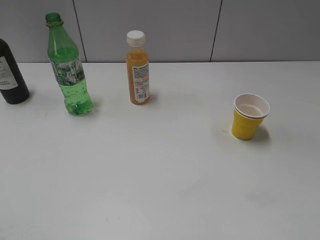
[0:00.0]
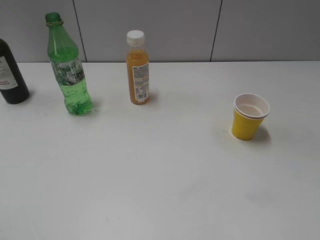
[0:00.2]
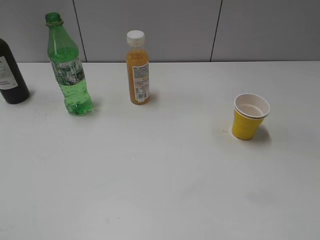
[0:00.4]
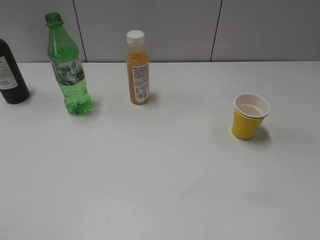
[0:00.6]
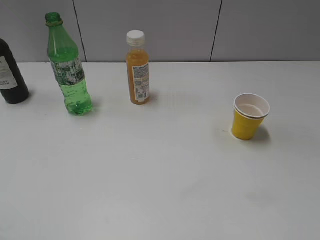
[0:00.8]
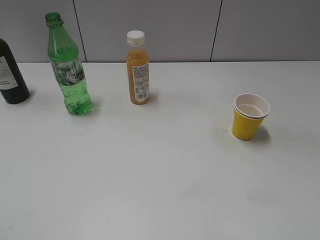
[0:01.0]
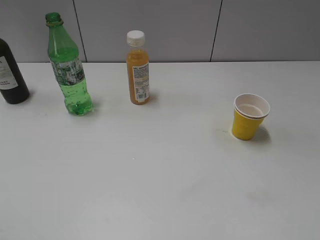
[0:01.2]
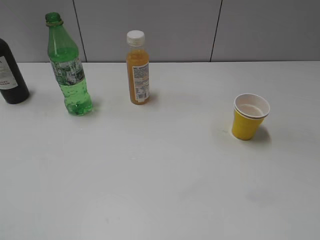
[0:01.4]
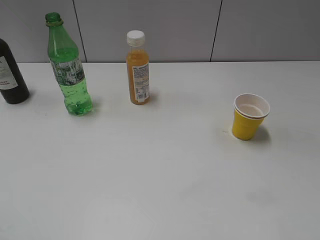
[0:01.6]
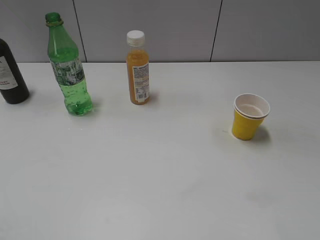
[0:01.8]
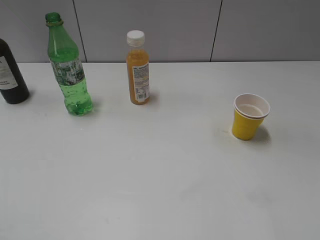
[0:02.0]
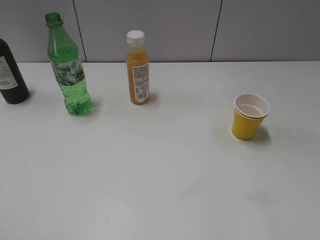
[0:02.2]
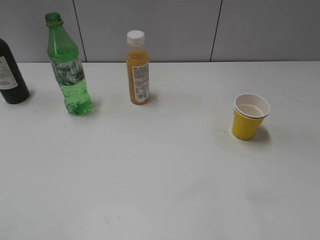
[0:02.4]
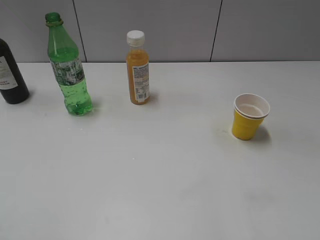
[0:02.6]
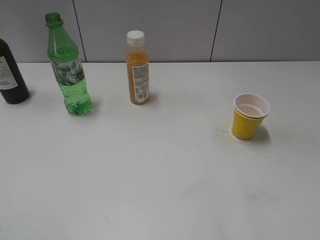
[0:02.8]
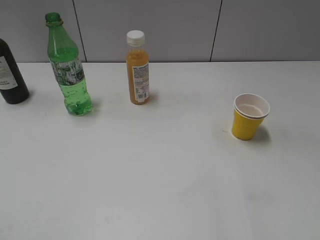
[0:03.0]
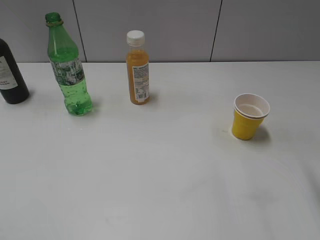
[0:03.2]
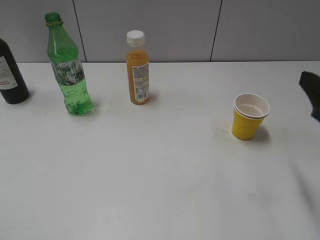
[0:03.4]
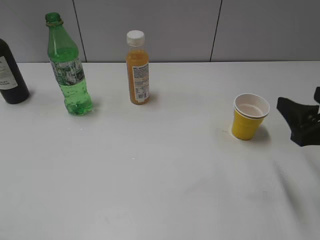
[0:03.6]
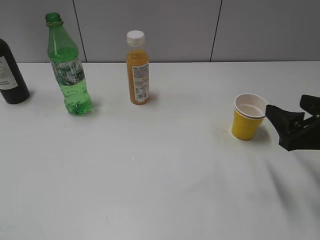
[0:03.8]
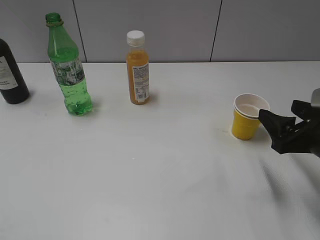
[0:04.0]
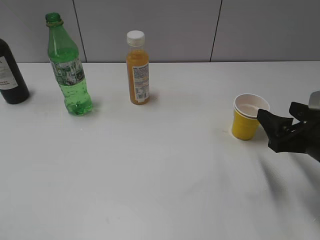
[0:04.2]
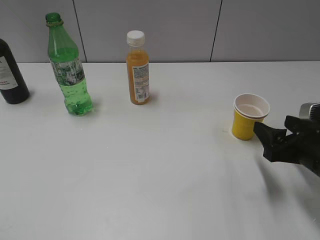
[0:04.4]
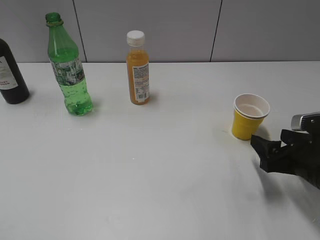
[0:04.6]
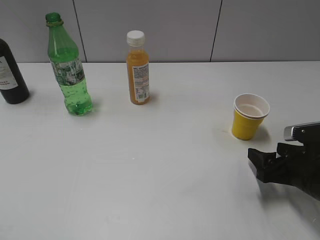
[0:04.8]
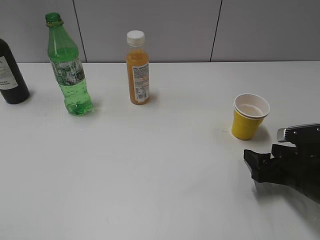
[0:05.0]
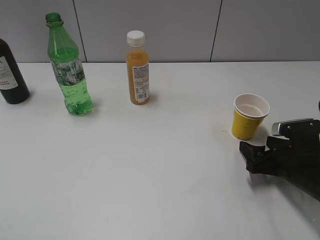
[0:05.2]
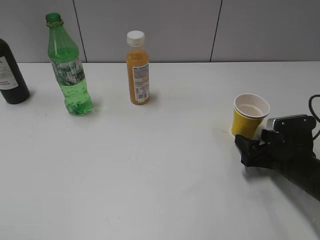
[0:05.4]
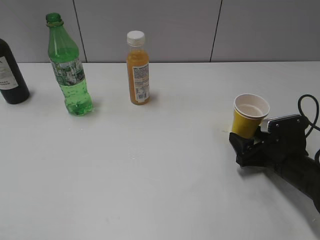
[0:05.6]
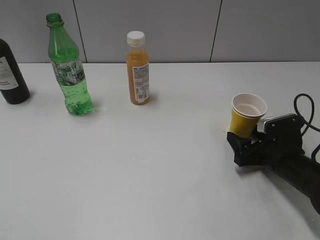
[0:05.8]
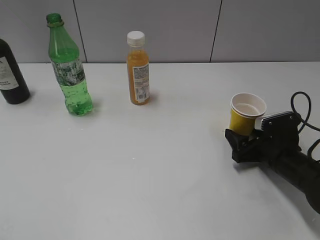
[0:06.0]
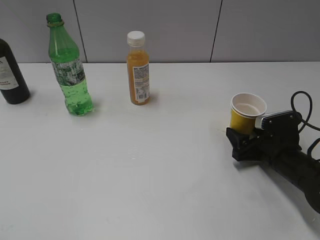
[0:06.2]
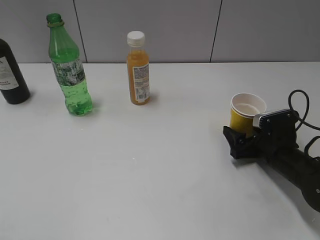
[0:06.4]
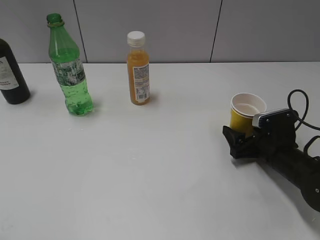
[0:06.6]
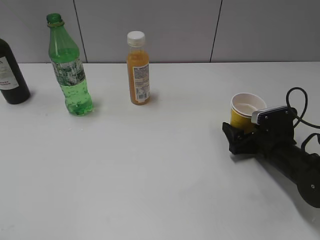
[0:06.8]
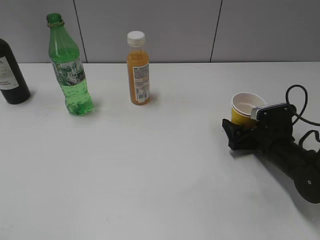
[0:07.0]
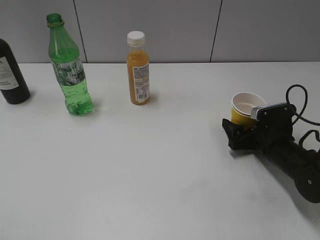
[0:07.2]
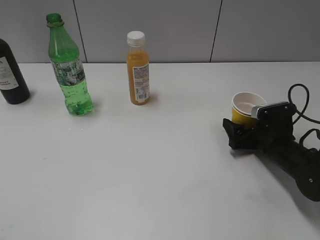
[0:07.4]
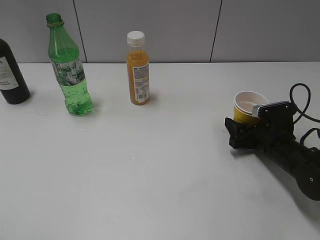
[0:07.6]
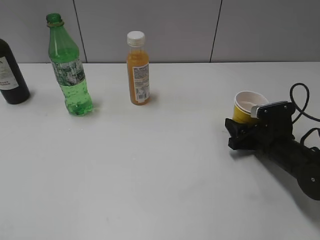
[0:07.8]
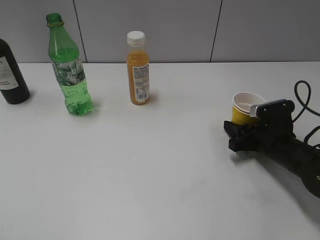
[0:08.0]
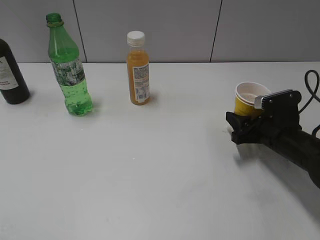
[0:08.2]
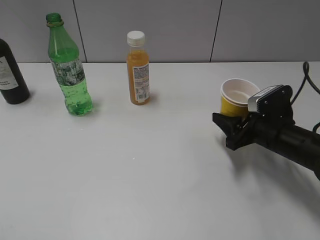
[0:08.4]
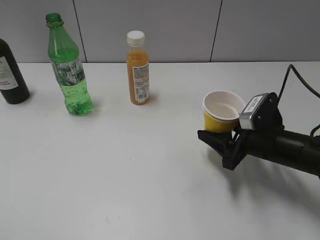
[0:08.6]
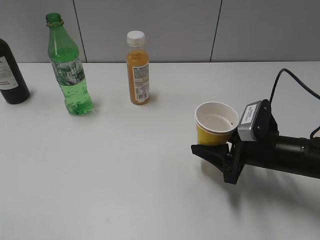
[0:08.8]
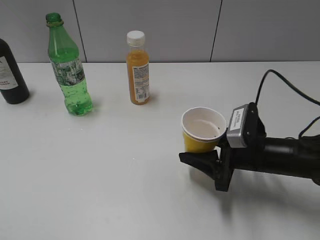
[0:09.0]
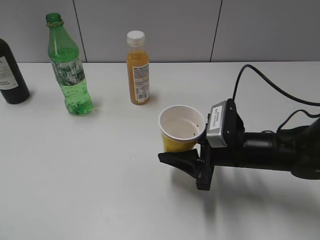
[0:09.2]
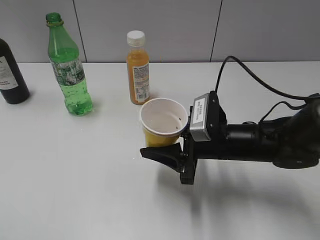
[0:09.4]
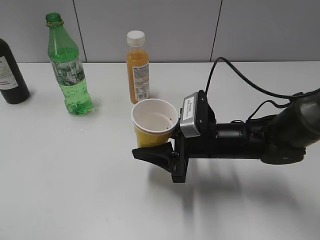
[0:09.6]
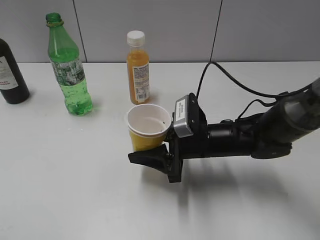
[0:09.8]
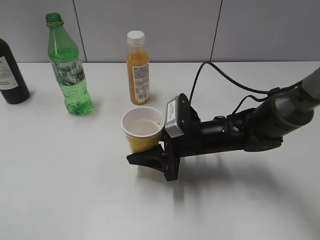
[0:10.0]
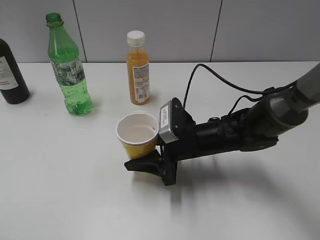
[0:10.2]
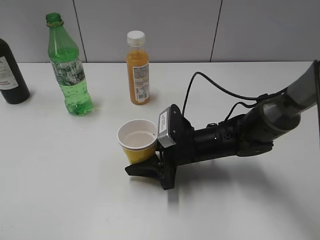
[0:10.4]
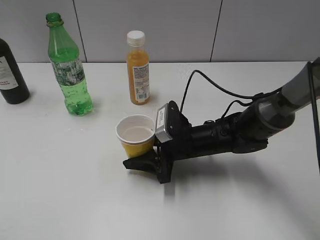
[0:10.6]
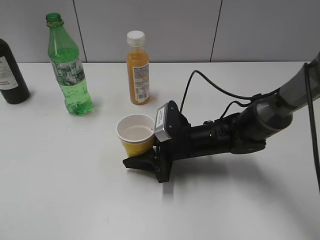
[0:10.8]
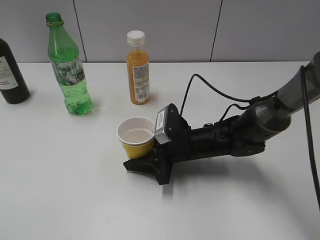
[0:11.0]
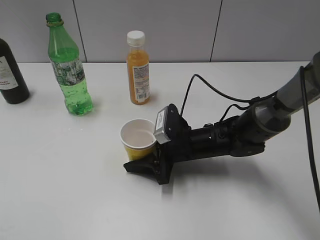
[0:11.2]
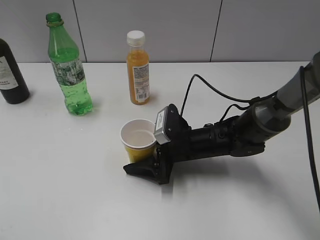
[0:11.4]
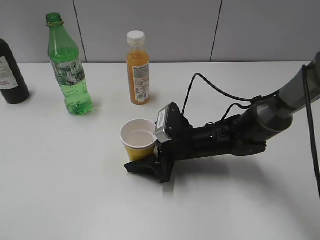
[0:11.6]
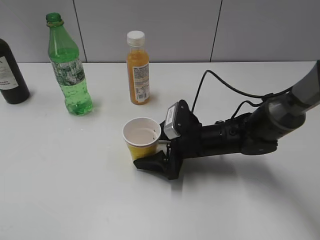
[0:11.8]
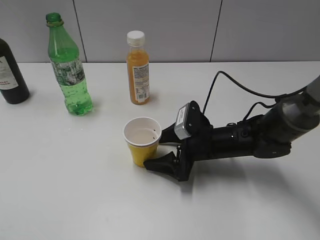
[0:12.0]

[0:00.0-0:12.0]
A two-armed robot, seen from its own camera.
Step, 0:01.0 to 0:07.8: Grasp the yellow paper cup with right gripper.
0:03.0 to 0:04.4: The right gripper goes some 20 cm downward, and opens.
0:04.4 to 0:06.0: The right gripper travels downward and forward by roughly 10 cm.
0:06.0 to 0:07.6: The right gripper opens, then closes again.
0:07.6 to 0:09.0: The right gripper moves to the left, upward and backward, some 10 cm, and closes its fingers.
0:09.0 to 0:10.4: The right gripper travels to the left by approximately 10 cm.
0:10.4 to 0:12.0: The right gripper opens.

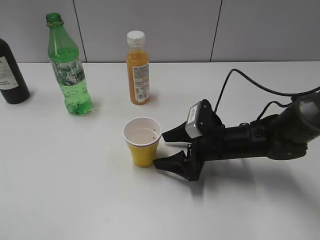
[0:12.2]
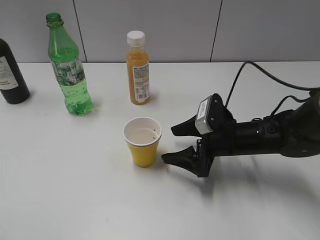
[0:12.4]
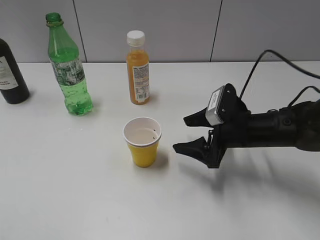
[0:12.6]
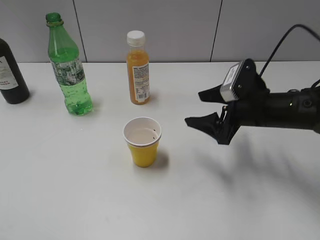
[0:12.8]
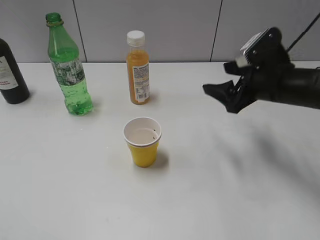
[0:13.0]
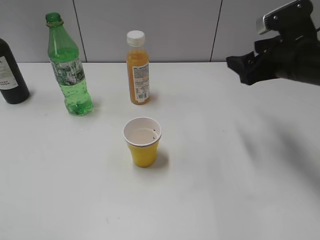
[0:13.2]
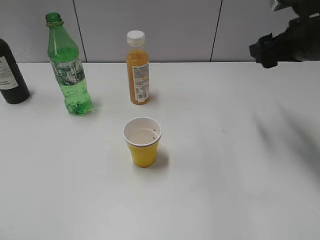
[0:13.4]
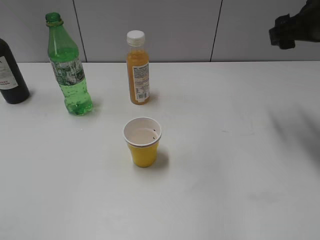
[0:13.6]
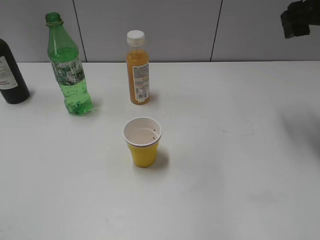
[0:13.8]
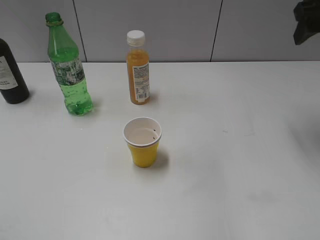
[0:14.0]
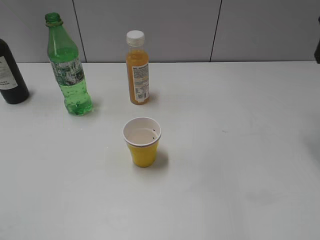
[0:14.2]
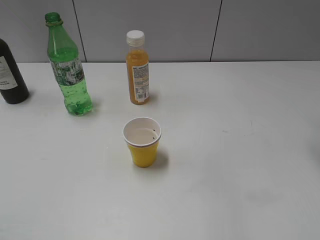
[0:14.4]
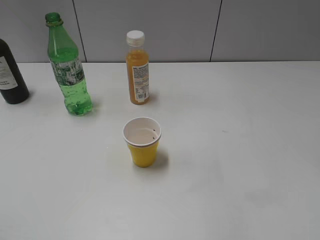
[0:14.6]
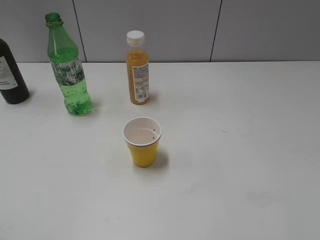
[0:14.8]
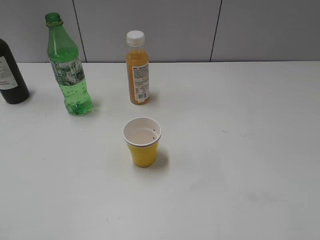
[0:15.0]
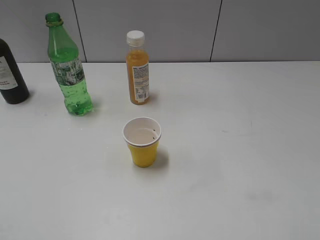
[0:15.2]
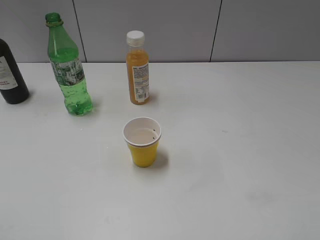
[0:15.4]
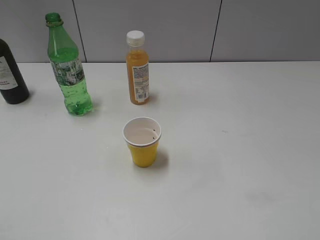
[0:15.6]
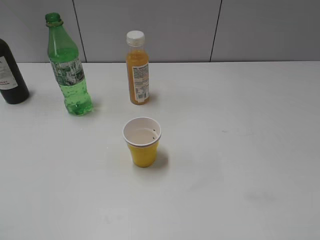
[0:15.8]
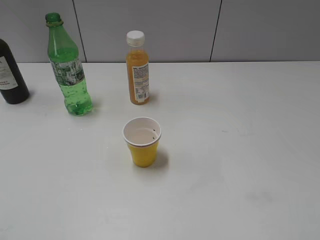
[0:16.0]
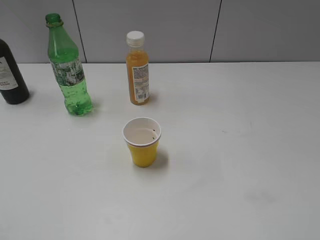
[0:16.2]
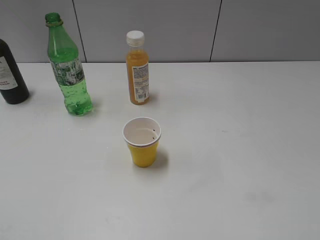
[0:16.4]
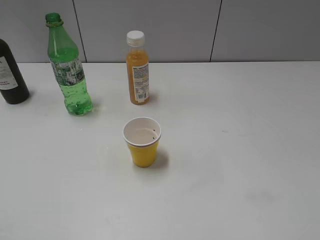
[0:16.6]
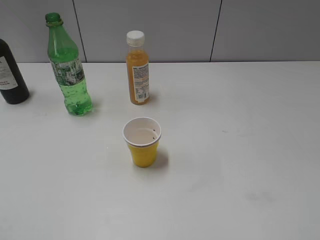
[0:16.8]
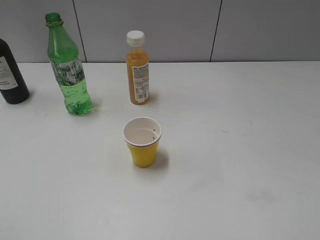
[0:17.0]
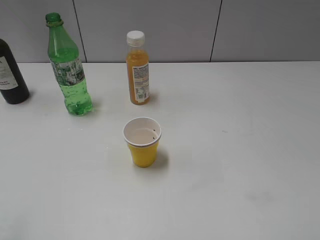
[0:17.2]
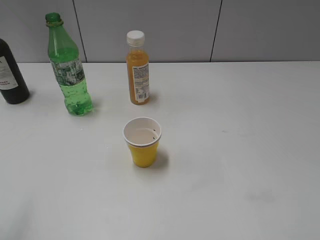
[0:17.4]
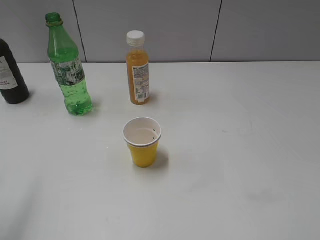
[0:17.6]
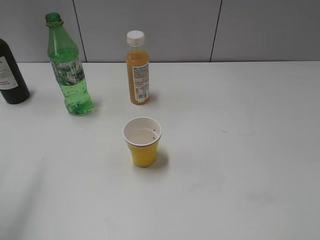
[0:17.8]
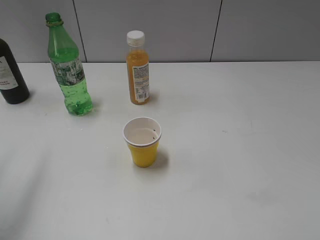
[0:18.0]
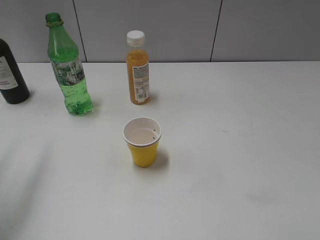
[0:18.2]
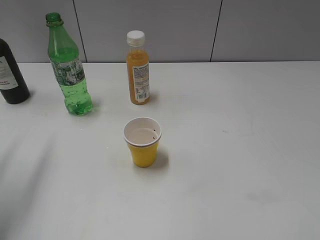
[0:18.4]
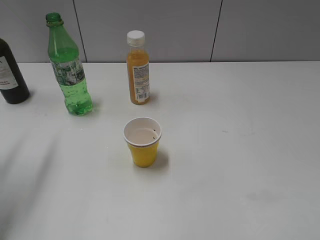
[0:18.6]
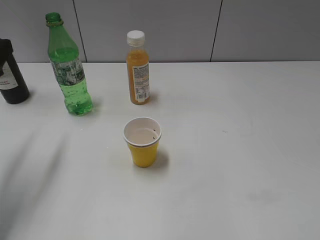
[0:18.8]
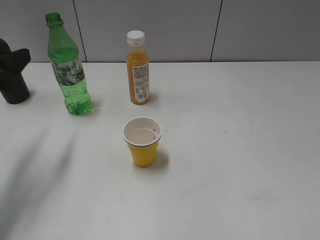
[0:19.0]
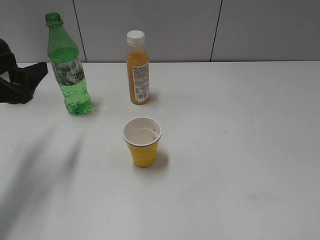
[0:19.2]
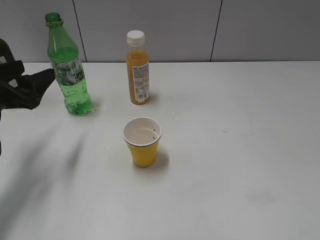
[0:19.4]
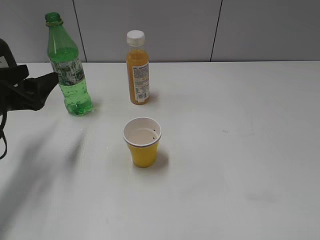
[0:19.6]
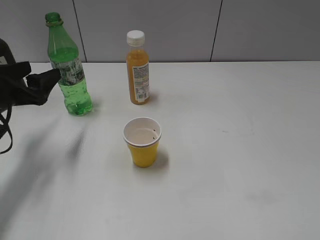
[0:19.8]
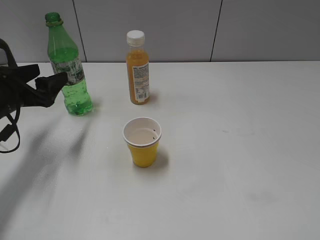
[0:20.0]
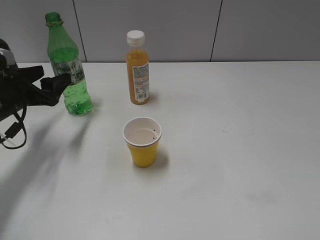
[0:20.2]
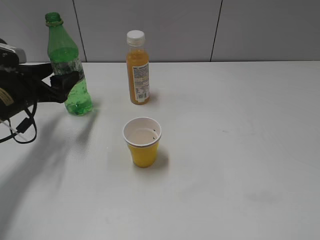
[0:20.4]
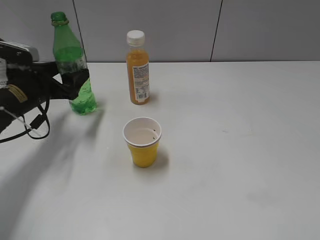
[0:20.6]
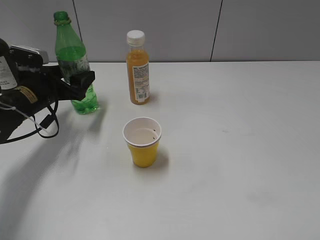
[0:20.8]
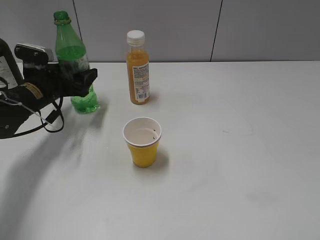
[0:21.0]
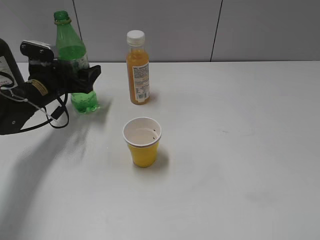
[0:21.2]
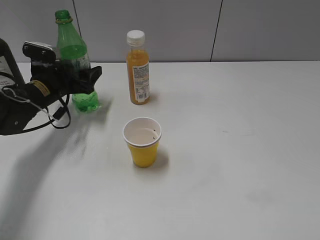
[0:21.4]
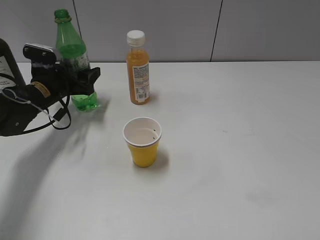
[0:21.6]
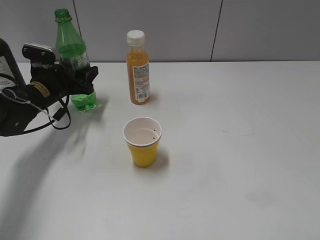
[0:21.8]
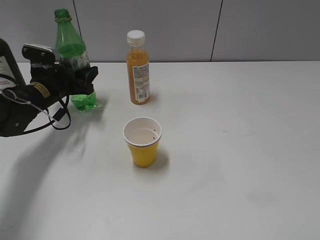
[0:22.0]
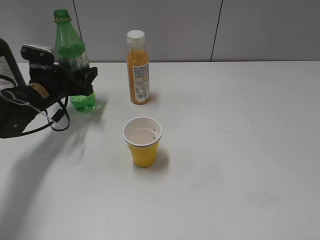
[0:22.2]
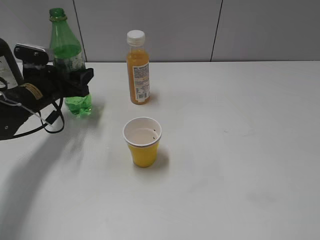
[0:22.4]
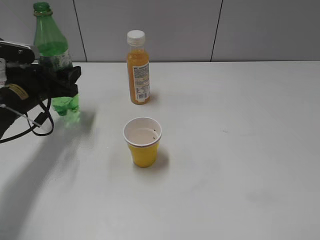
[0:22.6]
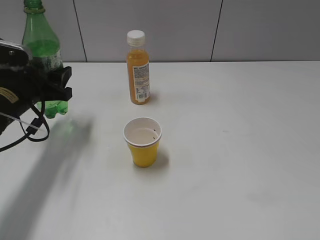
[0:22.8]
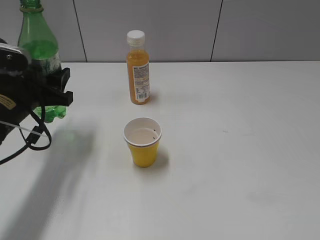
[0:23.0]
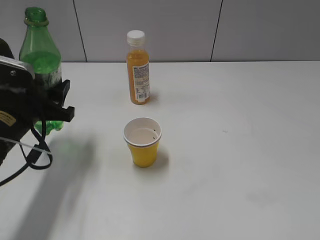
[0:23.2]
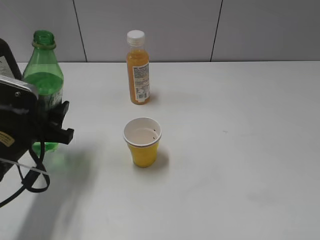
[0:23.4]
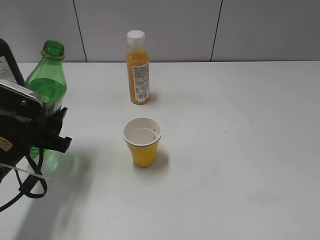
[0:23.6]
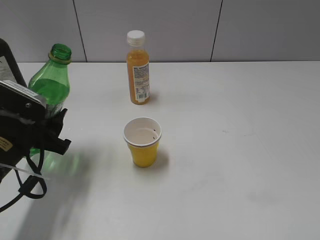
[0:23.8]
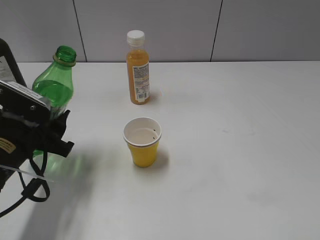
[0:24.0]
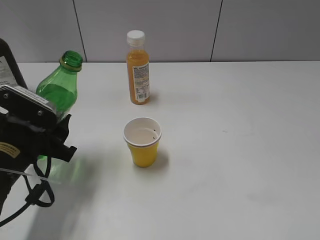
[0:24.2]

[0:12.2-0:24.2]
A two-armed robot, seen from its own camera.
Step, 0:12.2 to 0:22.0: Grasp the bottle with sprite with left gripper.
0:12.2 to 0:13.8: The right gripper shifts roughly 30 cm upward and to the right.
0:13.8 to 0:15.2: The right gripper heads backward, covering some 25 cm.
0:16.6 to 0:18.2: The left gripper shifts approximately 20 cm forward.
0:18.2 to 0:19.8: The left gripper shifts approximately 15 cm downward and forward, and opens its fingers.
0:19.8 to 0:21.2: The left gripper goes approximately 10 cm forward and downward.
0:21.2 to 0:22.6: The left gripper changes place by roughly 5 cm, and closes.
0:22.6 to 0:24.2: The left gripper shifts some 15 cm backward.
